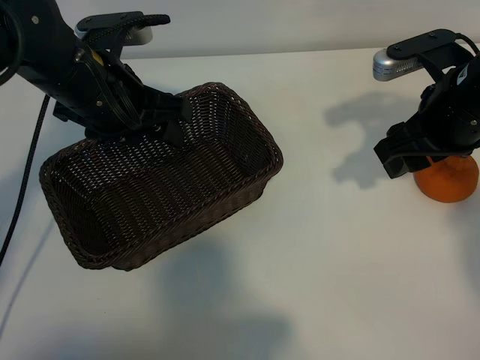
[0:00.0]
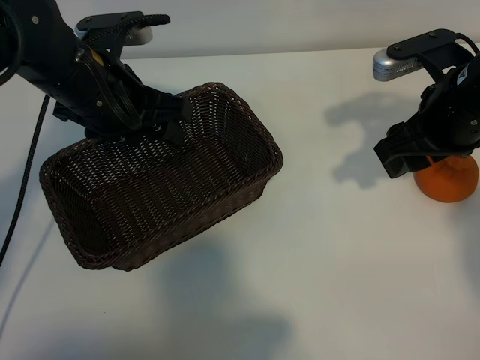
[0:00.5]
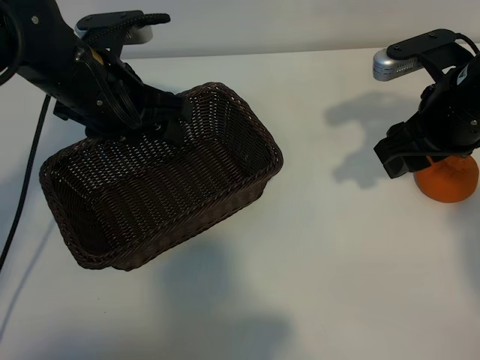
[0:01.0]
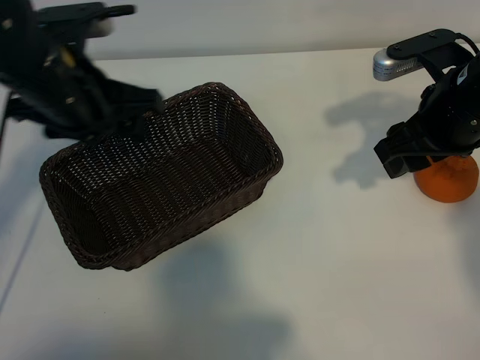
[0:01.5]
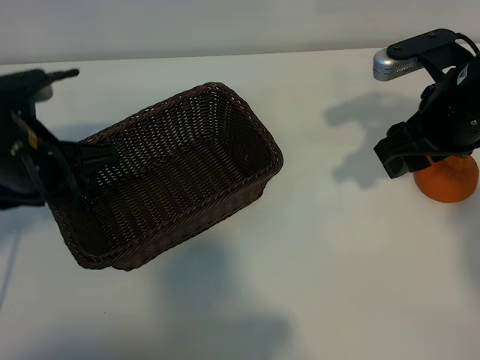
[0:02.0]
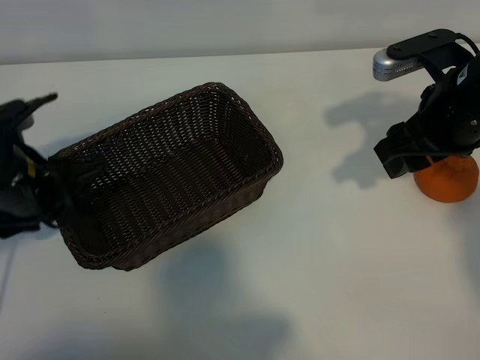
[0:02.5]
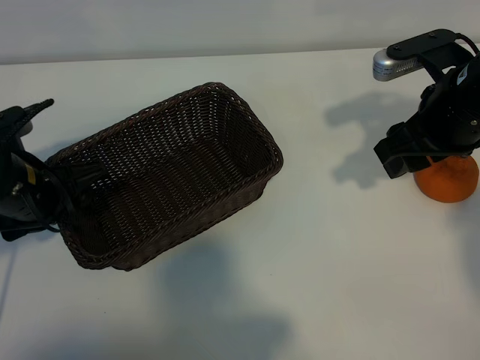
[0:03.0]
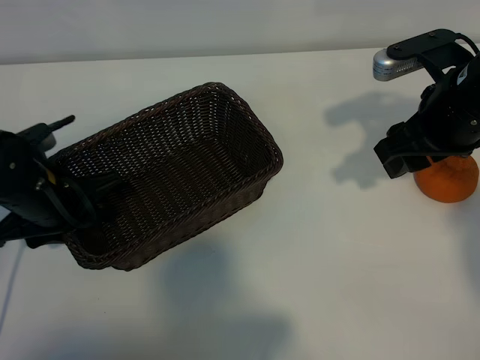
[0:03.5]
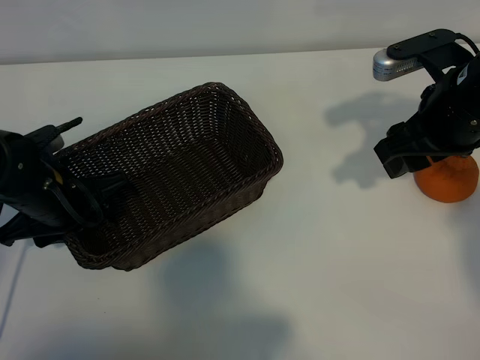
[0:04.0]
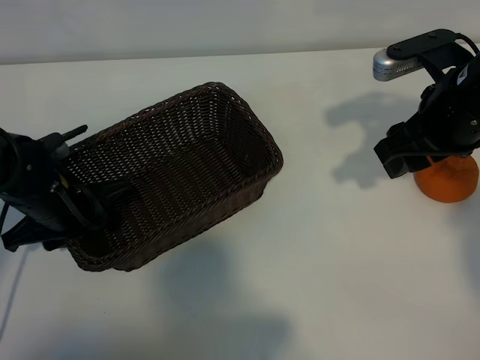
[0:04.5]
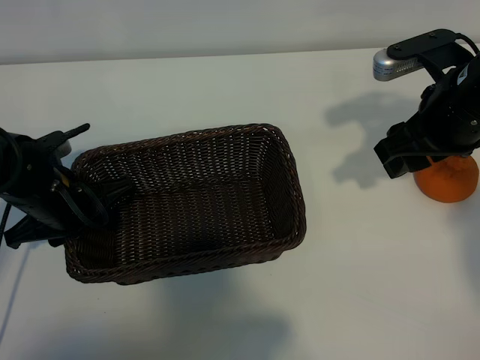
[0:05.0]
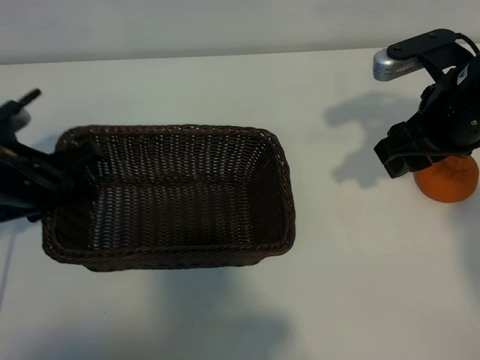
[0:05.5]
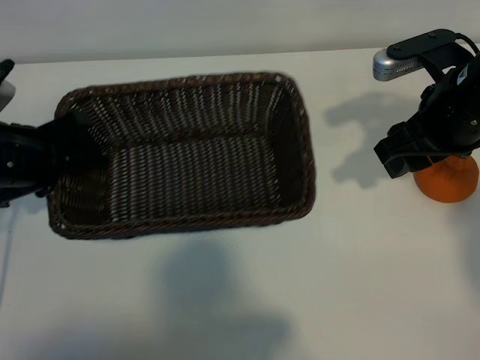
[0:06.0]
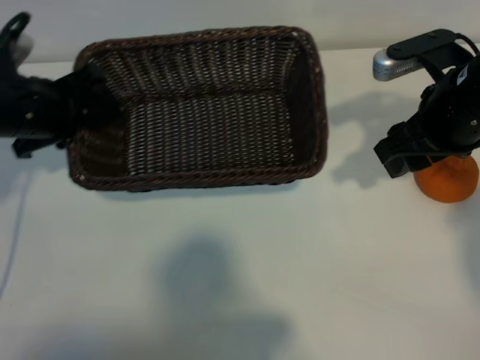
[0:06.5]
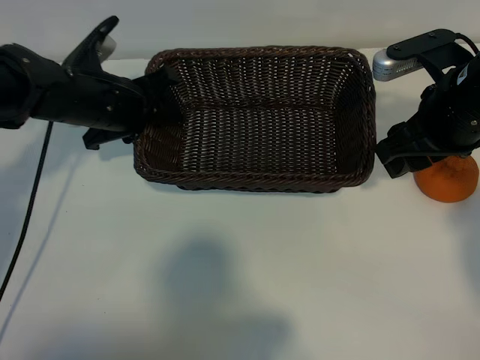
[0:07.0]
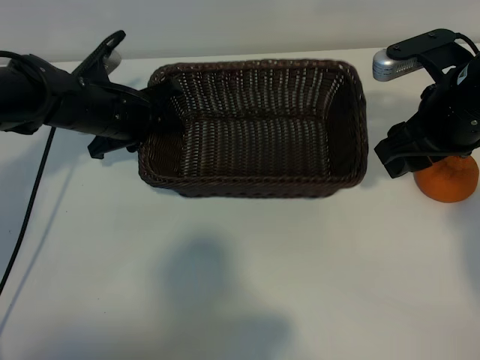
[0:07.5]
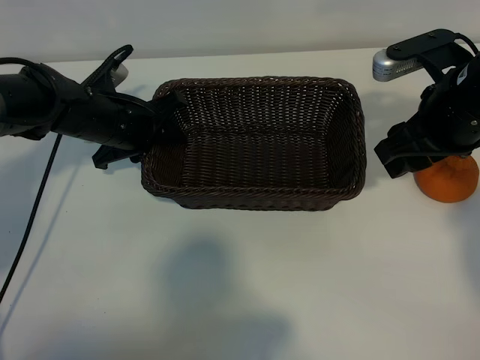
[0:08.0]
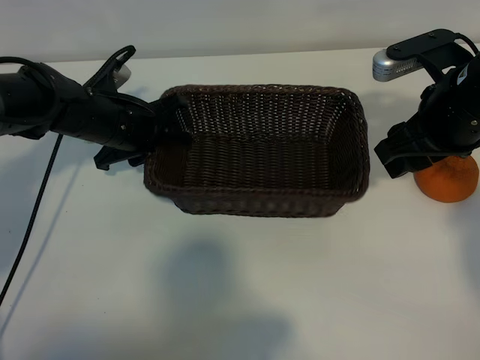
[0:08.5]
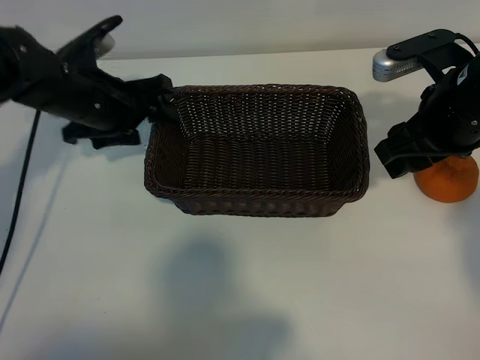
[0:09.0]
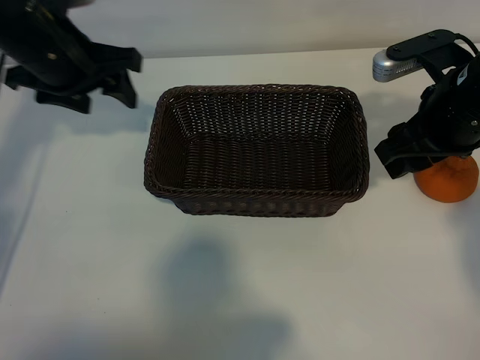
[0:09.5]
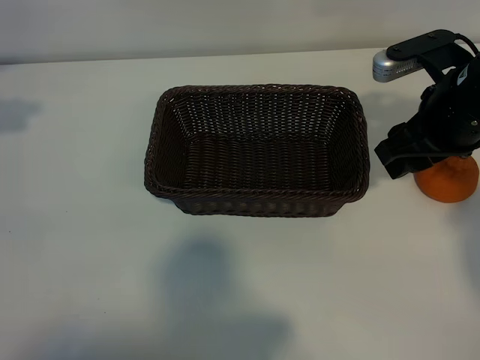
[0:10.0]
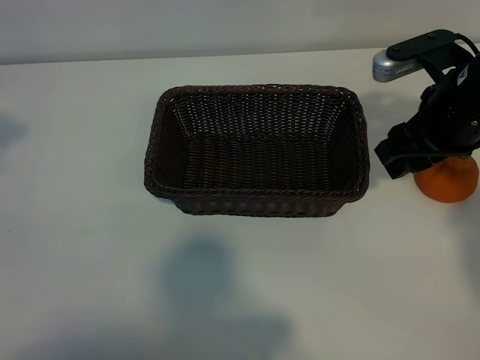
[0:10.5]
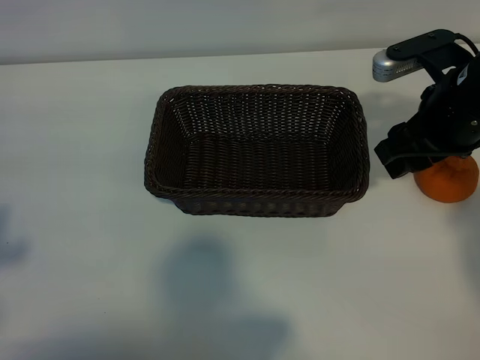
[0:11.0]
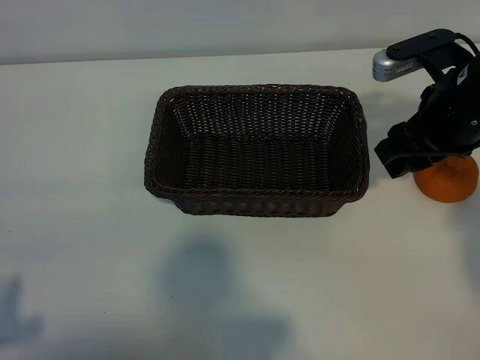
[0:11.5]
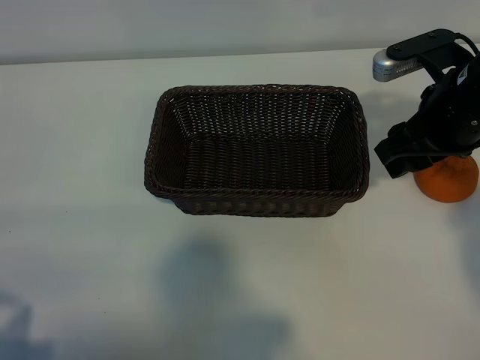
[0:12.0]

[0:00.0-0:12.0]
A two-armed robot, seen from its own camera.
Task of the whole recording: pick up the orange and put it into the basket.
Step, 0:01.0 to 0:04.5: Grasp the basket with left gripper.
Step, 0:05.0 to 0:08.5: Place the basket in the center of view with left gripper.

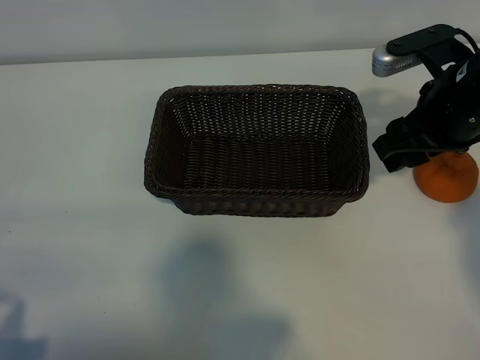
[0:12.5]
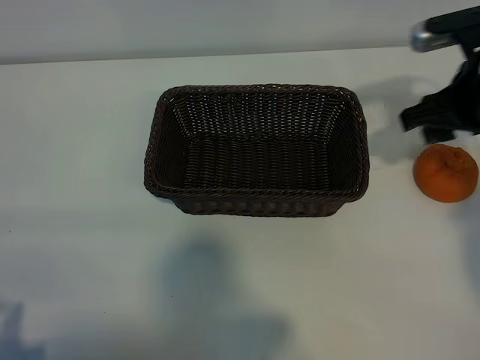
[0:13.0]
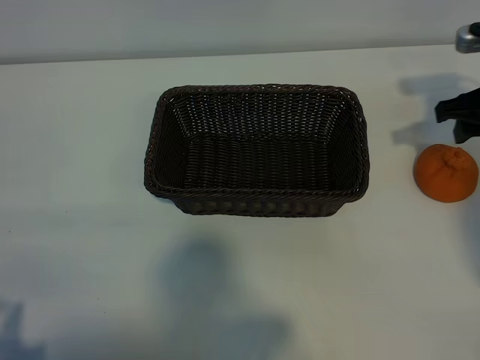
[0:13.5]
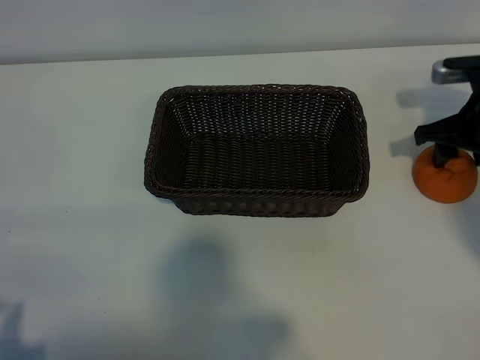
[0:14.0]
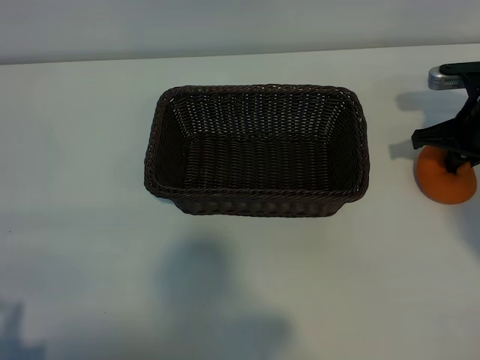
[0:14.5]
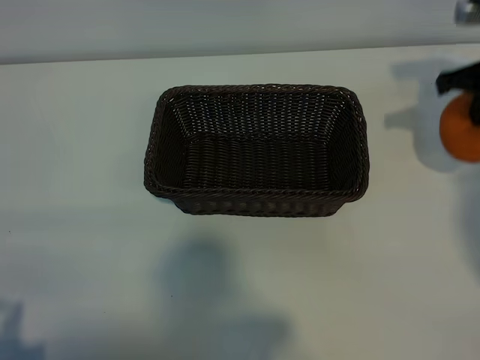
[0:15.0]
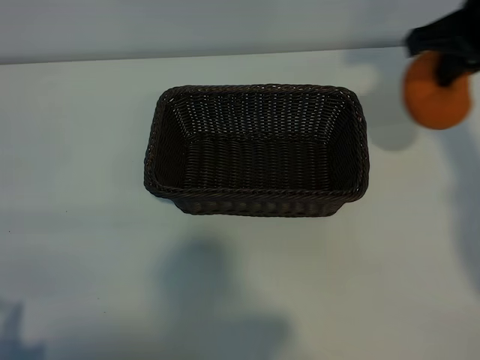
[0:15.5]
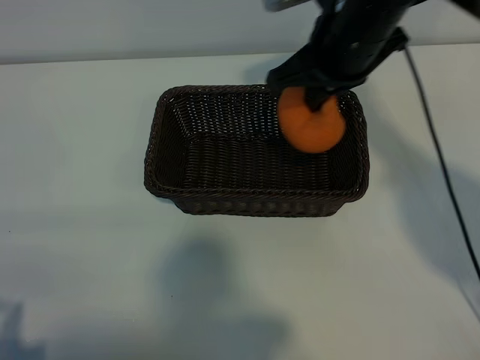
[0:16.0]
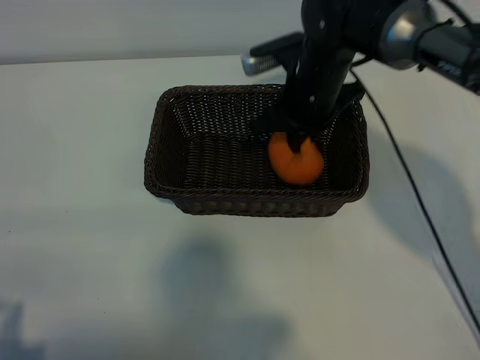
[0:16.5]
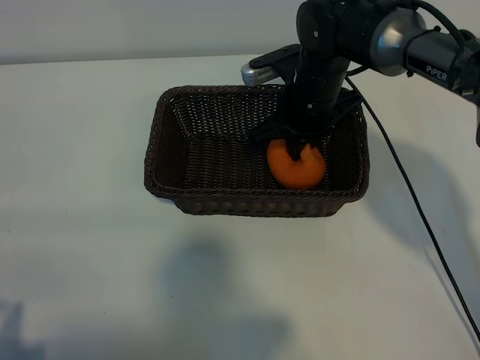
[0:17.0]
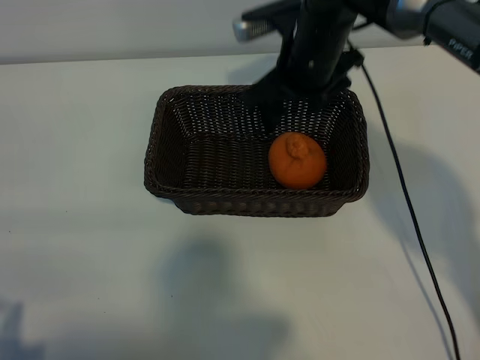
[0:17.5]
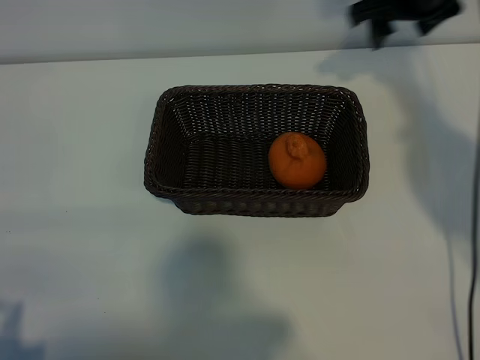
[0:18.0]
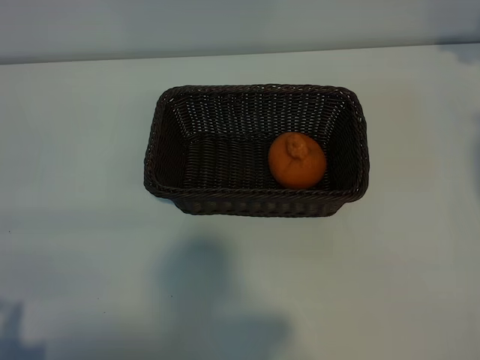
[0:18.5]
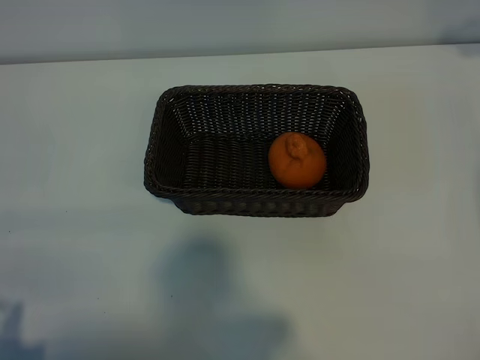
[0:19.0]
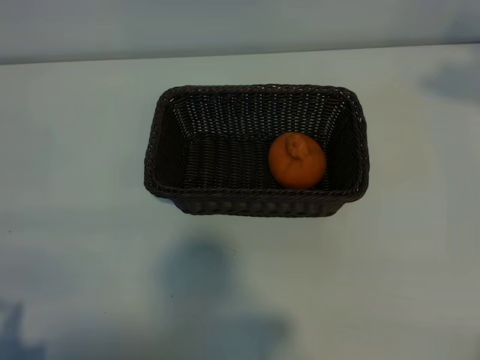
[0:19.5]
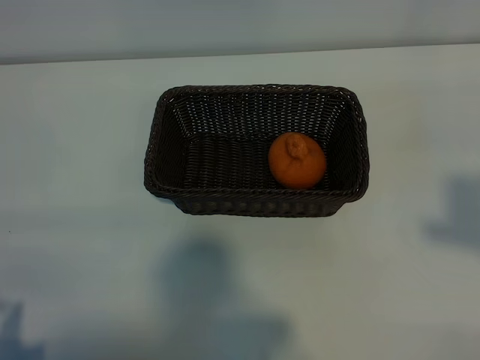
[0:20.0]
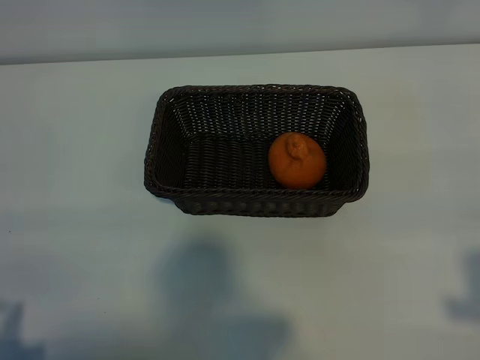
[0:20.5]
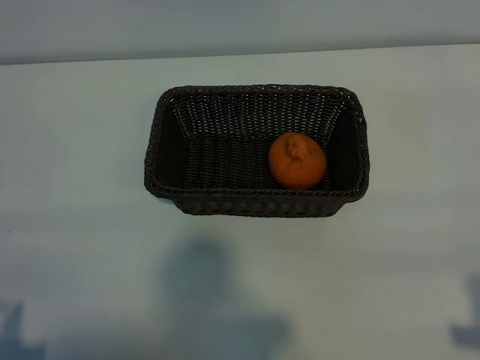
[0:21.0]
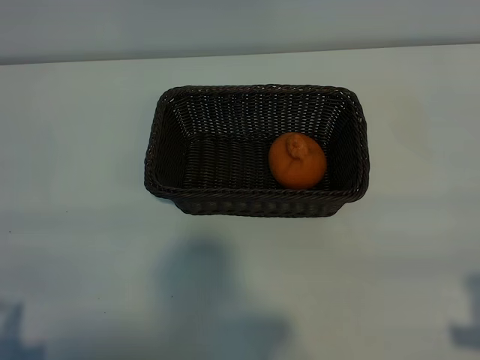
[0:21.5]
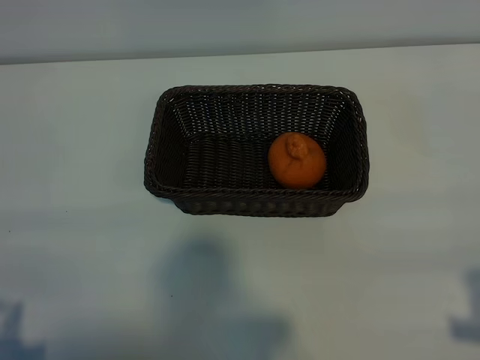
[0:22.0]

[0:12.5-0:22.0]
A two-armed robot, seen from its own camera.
Task of the whole recording: pick up the orange and put it into the basket.
Step, 0:14.5 to 0:17.0: Place the orange in the basket with right gripper.

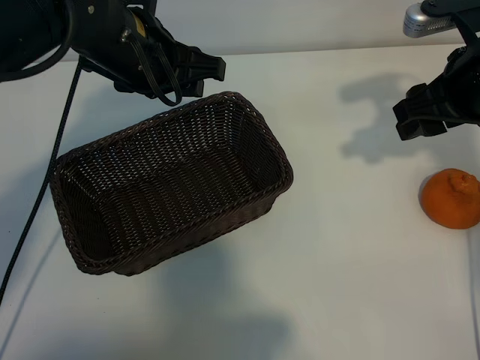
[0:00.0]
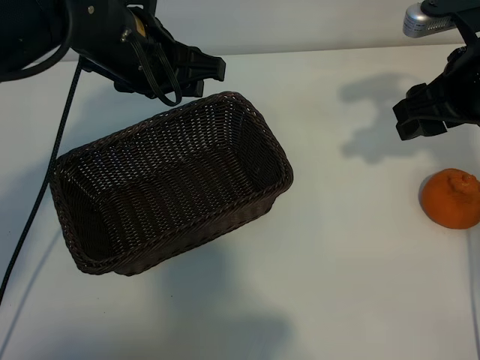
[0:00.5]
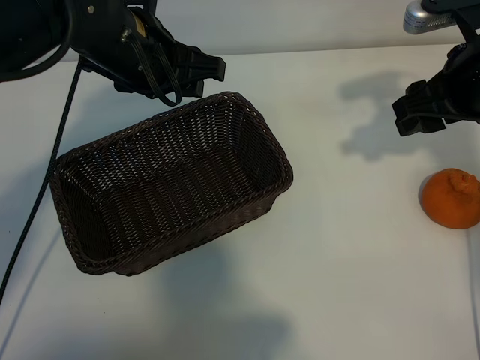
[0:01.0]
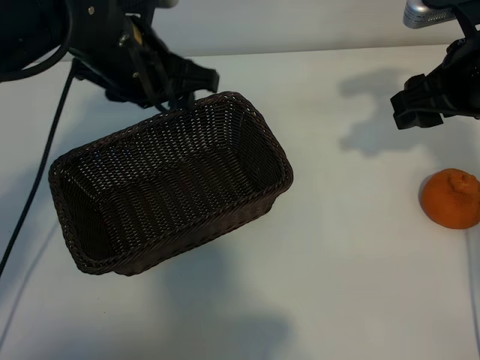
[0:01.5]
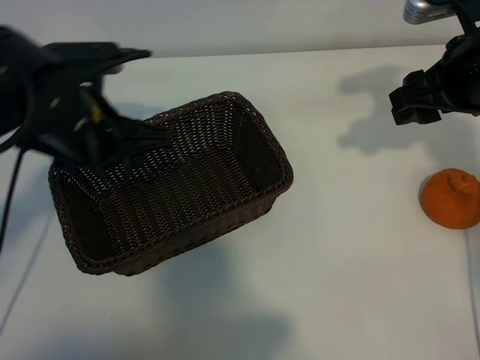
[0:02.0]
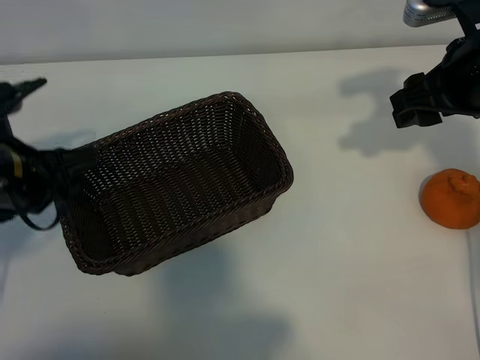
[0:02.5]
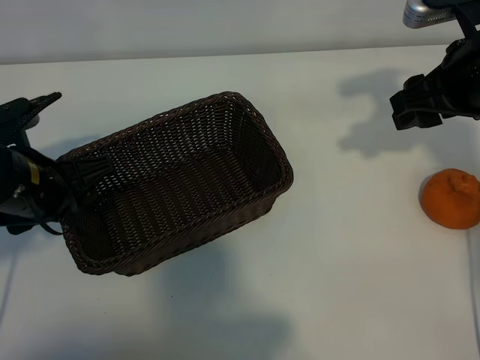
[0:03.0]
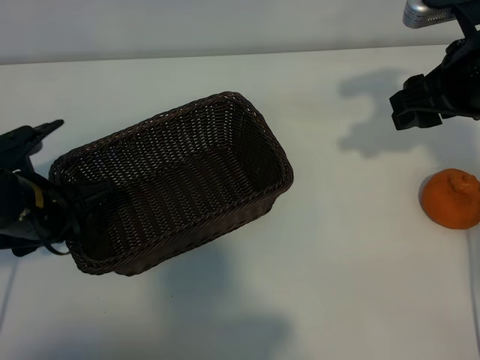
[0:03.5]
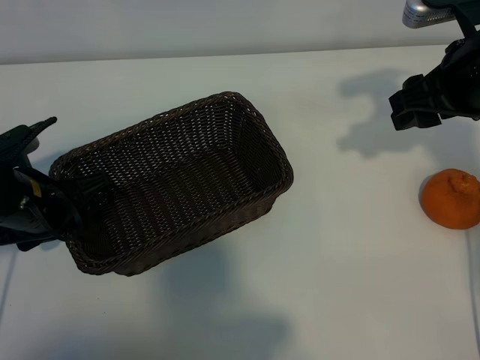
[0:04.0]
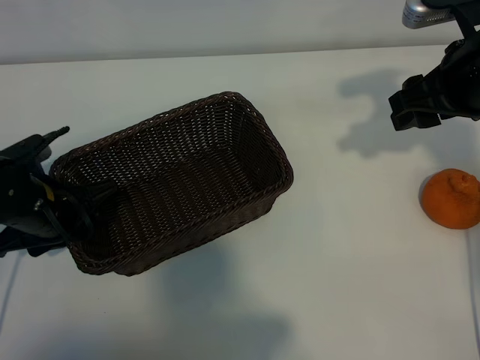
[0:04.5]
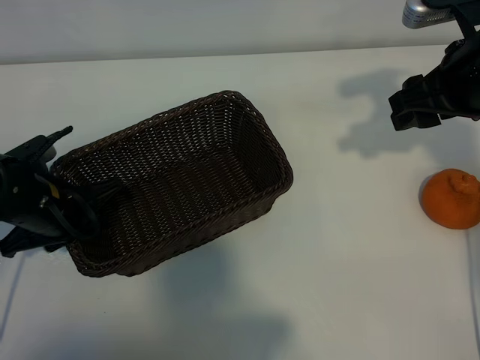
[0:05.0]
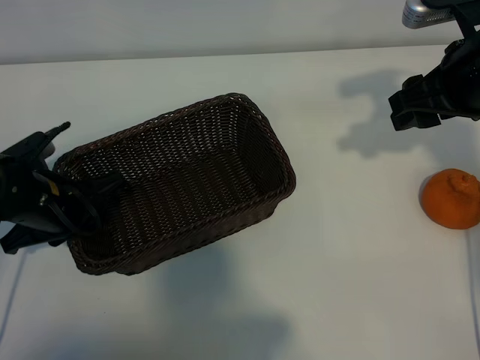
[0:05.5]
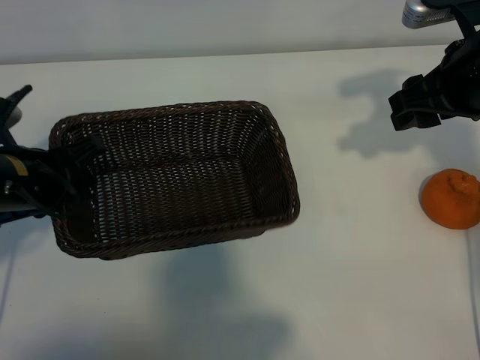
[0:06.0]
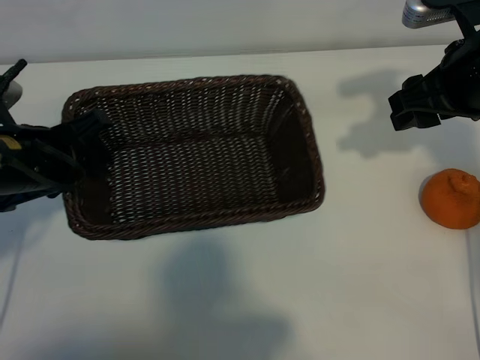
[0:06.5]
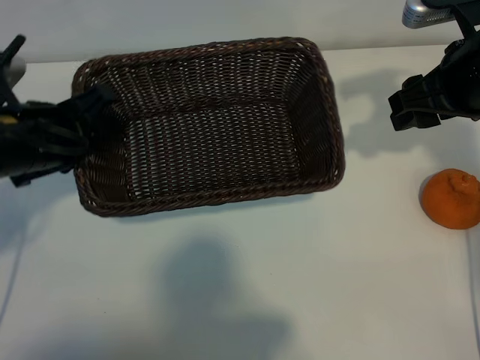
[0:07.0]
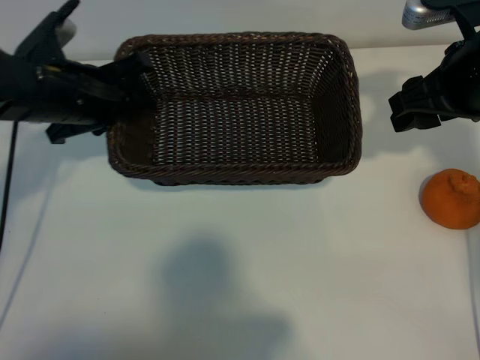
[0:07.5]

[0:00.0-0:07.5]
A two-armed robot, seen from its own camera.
Task of the whole recording: pick up the orange and put it into the basket.
Step, 0:01.0 to 0:05.0: Grasp the basket with left gripper.
